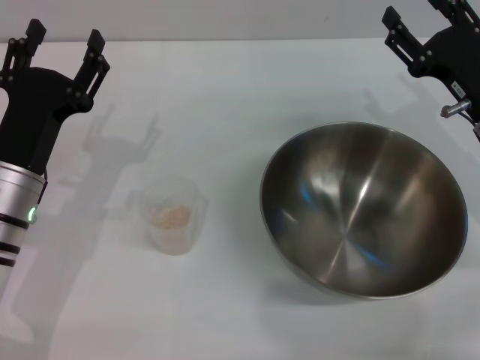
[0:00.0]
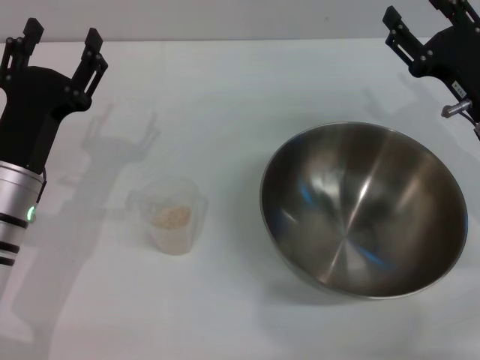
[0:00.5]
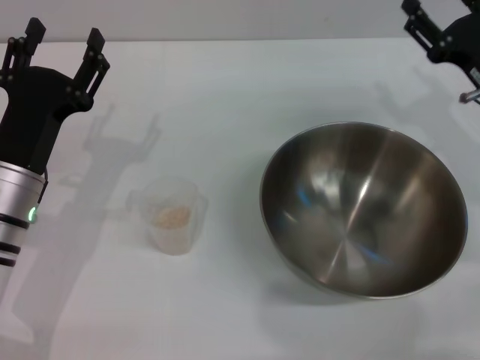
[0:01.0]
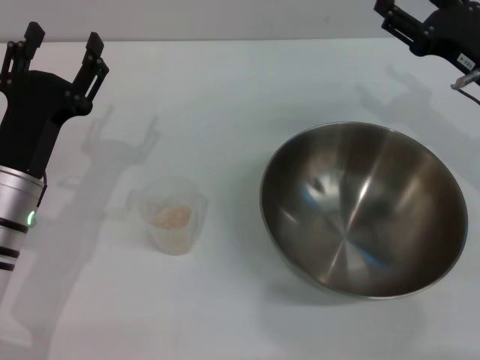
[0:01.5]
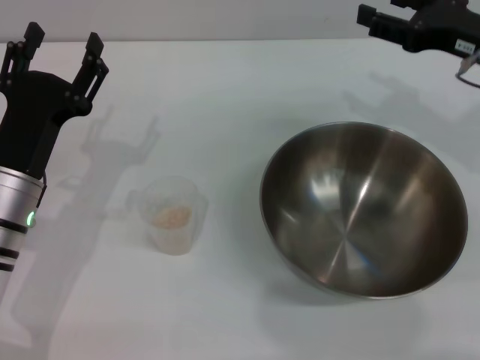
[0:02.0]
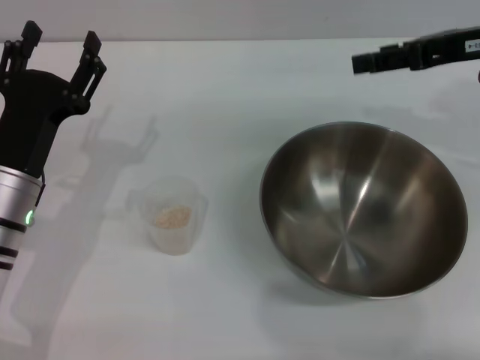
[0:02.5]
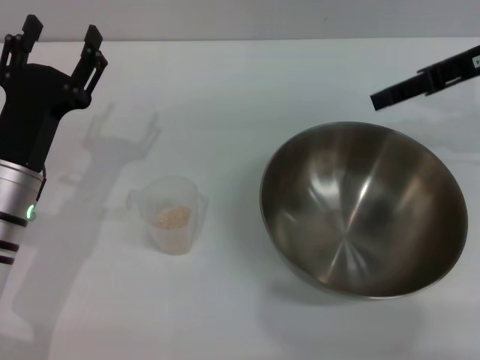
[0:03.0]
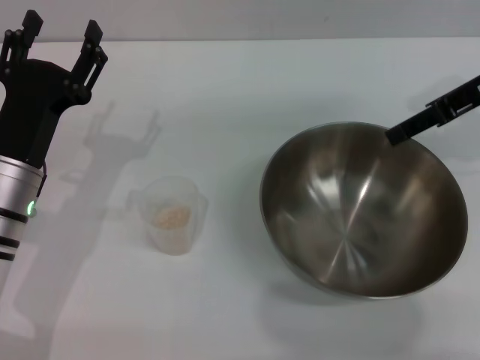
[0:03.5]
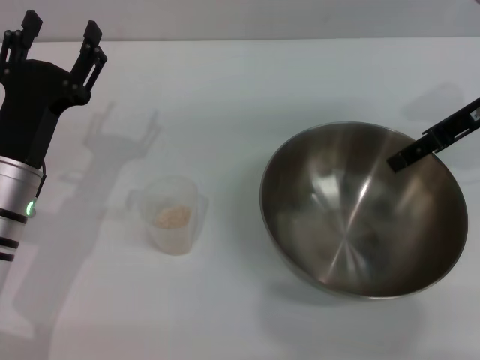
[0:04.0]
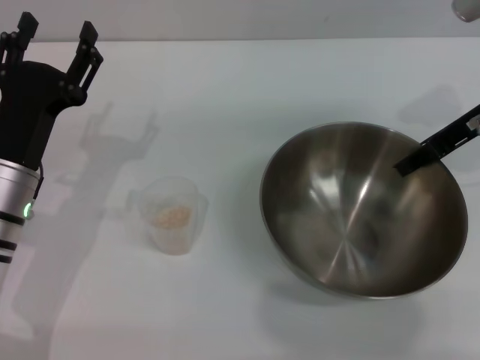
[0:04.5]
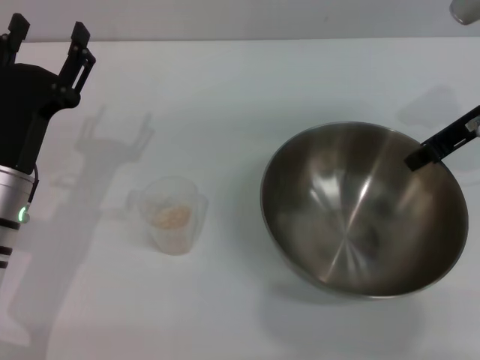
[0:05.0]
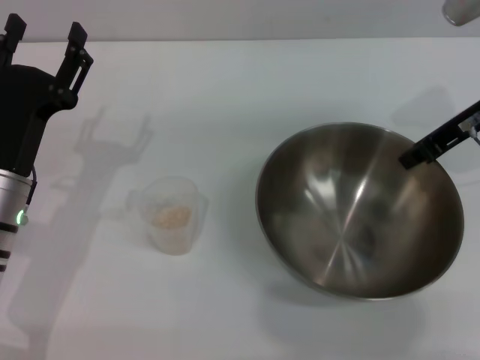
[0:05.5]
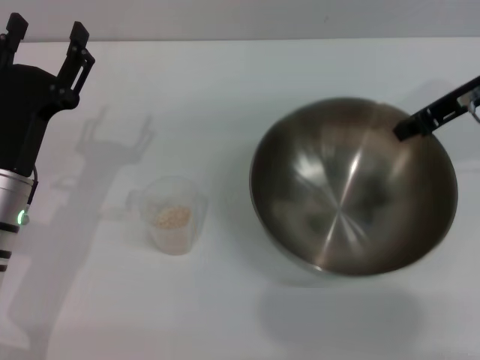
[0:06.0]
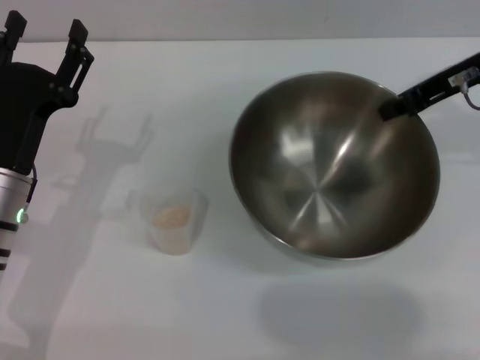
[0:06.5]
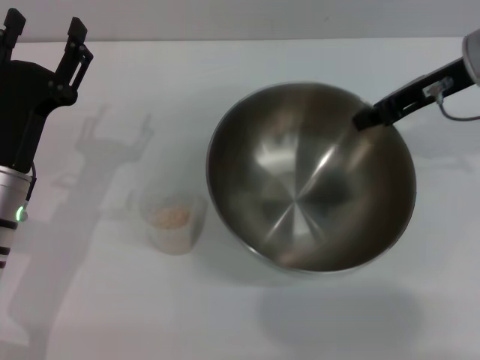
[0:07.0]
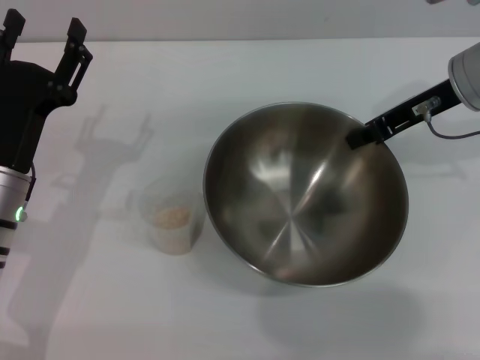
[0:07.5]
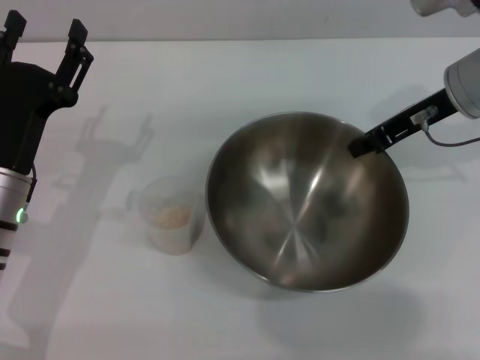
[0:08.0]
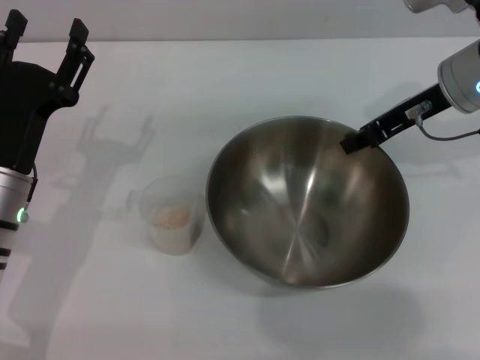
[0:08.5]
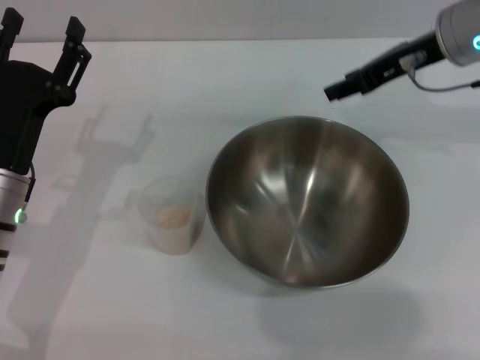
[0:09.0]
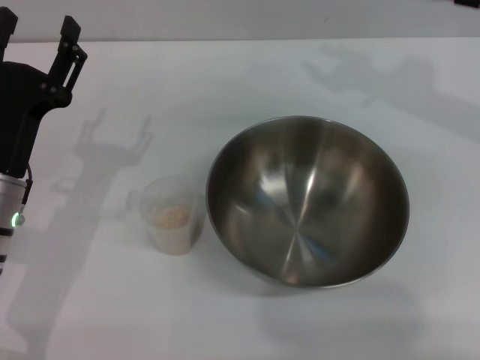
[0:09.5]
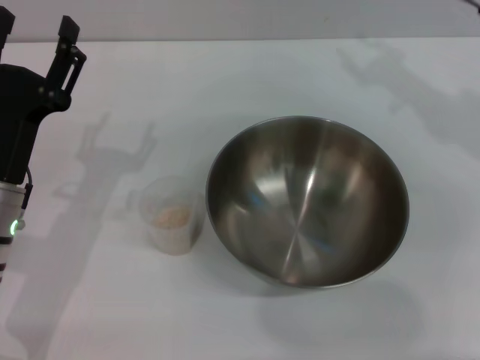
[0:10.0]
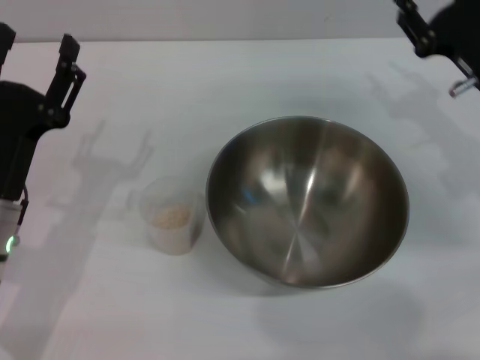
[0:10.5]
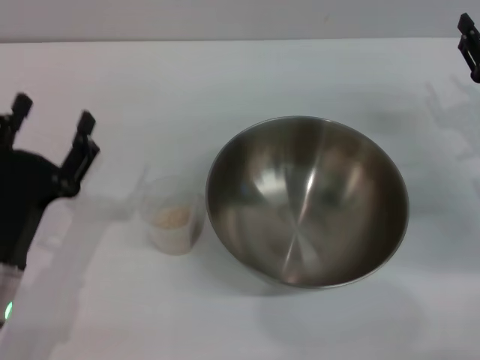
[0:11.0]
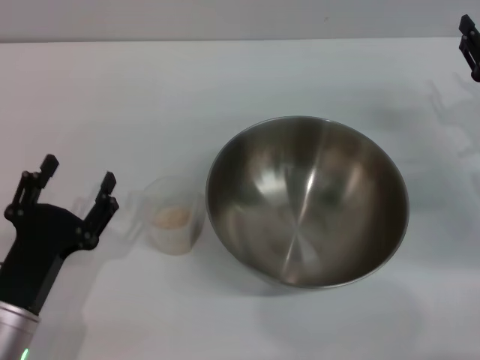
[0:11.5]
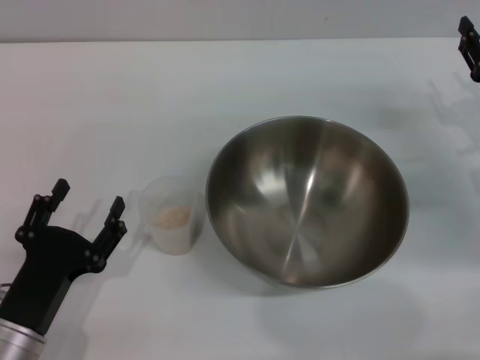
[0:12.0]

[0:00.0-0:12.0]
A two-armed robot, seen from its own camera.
Task of the whole recording: Place the bowl in the middle of the table with one hand and pour the rice from the grain cup into it with the other hand.
Step, 0:00.0 to 0:06.0: Pick up the bowl with the right gripper.
Step, 0:06.5 to 0:08.5: Place the bowl in the center of view with the right gripper.
0:00.0 to 0:02.0: The right gripper travels upward by some 10 cm.
0:04.0 to 0:06.0: The right gripper closes its fingers.
0:08.0 to 0:10.0: The right gripper opens its fingers.
0:10.0 to 0:12.0: The right gripper goes some 15 cm downward, to the right and backward, while the left gripper heads backward and downward, covering roughly 10 cm.

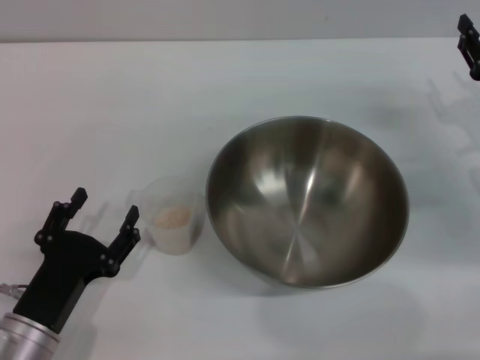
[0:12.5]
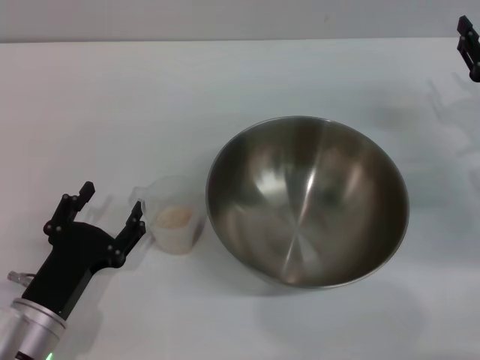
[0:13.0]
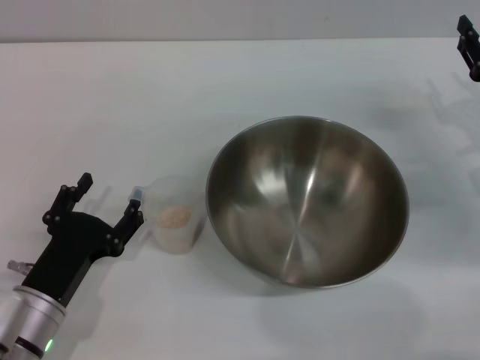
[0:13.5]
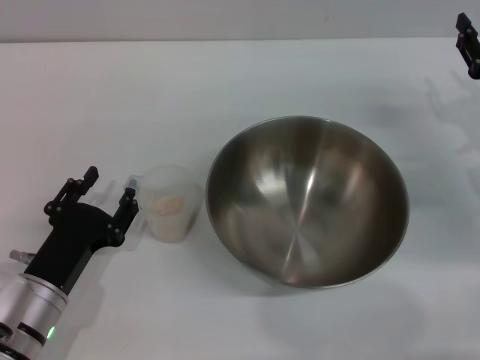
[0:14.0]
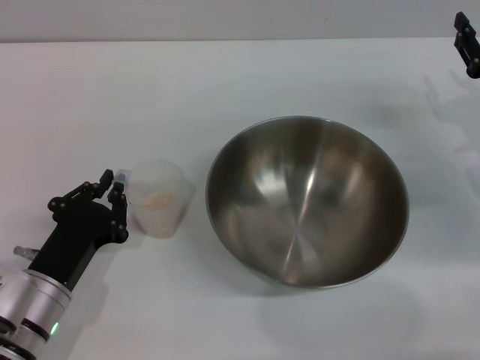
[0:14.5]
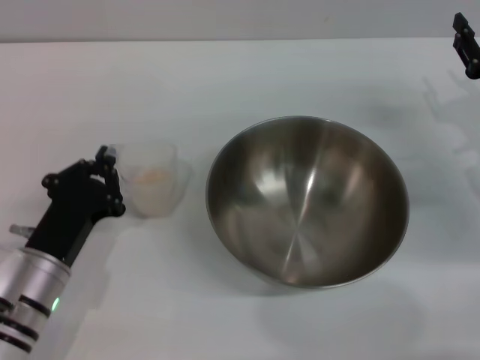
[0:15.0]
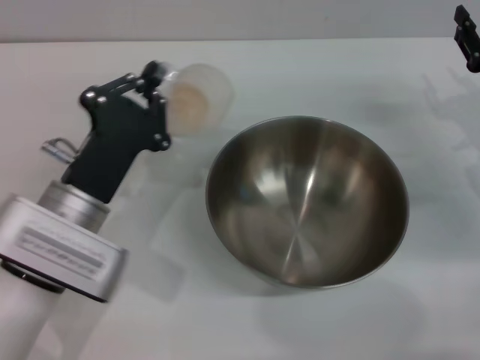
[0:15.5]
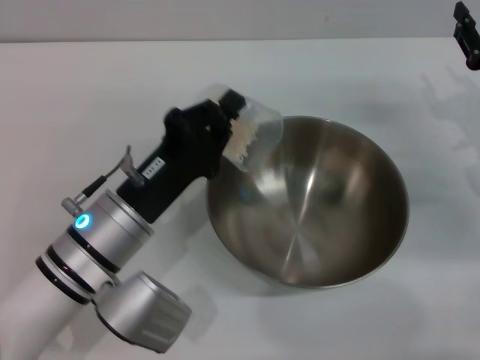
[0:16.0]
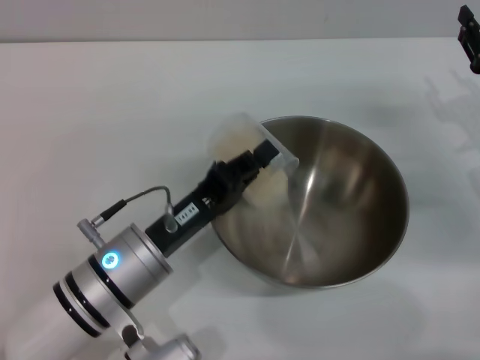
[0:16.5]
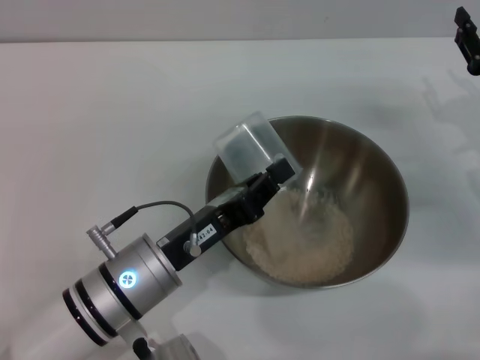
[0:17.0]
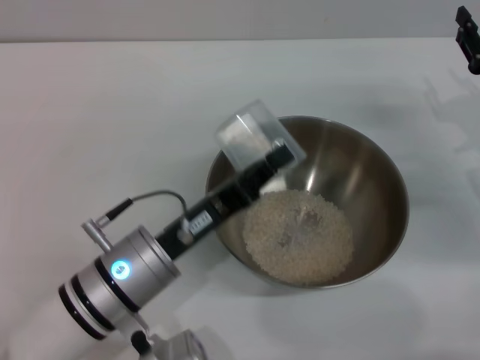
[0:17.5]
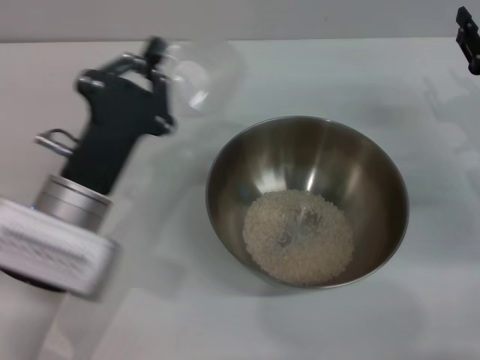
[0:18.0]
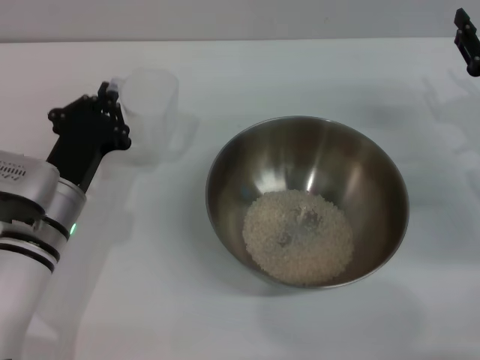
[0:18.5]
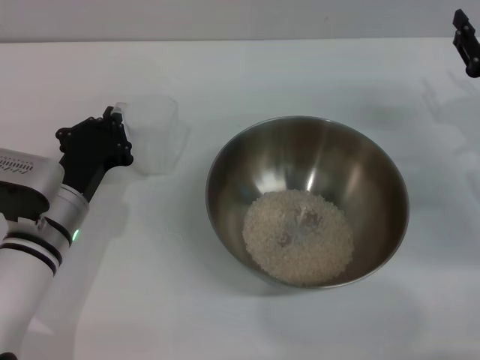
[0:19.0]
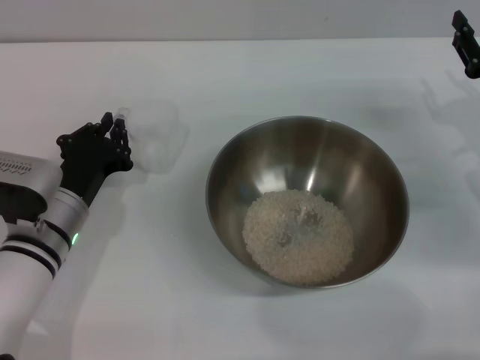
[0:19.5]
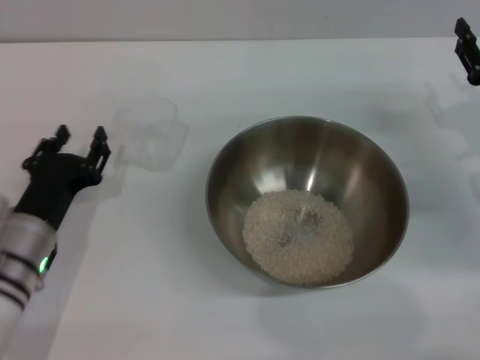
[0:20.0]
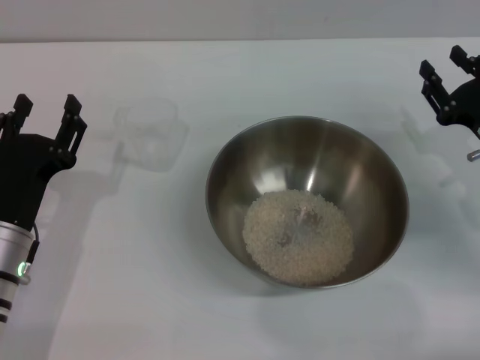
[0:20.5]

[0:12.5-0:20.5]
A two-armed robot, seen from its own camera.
Task of the whole recording: Place the bowl in the middle of the table with one hand and pour the rice from the grain cup into it with the other hand.
Step, 0:12.5 to 0:15.0: Pick up the cup with rice in it with the left gripper.
Step, 0:15.5 to 0:17.5: Pour the rice from the cup into the bowl with the left gripper.
Step, 0:18.0 to 0:20.0: Place the cup on the table with the left gripper.
0:12.5 to 0:14.5: The left gripper closes its fingers.
0:14.5 to 0:16.5: The left gripper goes approximately 10 cm to the right, and closes up.
0:16.5 to 0:18.5: The left gripper is displaced to the left and forward by approximately 10 cm.
0:18.5 to 0:20.5: The left gripper moves some 5 cm, and opens up.

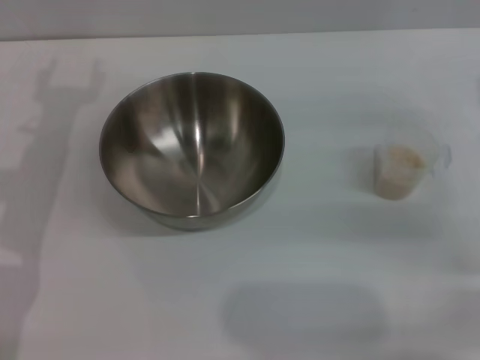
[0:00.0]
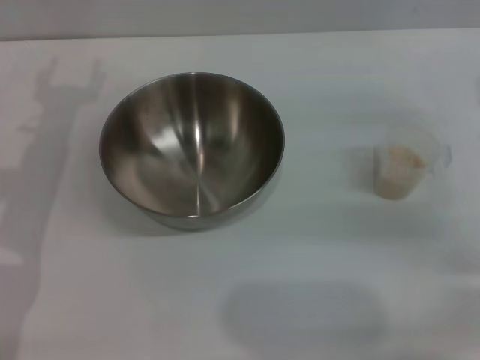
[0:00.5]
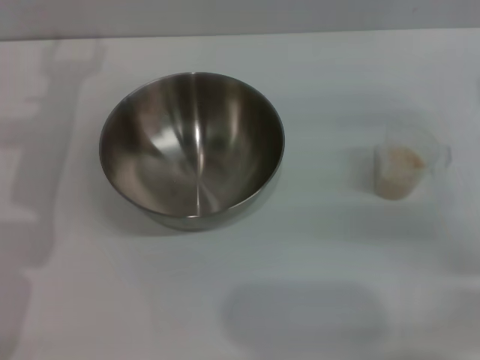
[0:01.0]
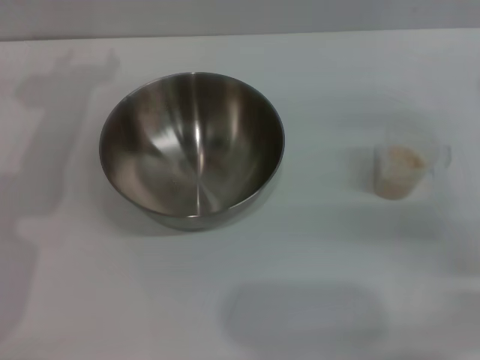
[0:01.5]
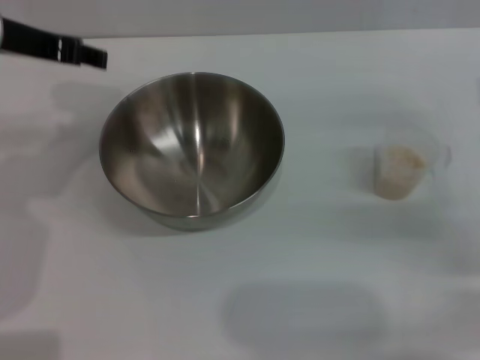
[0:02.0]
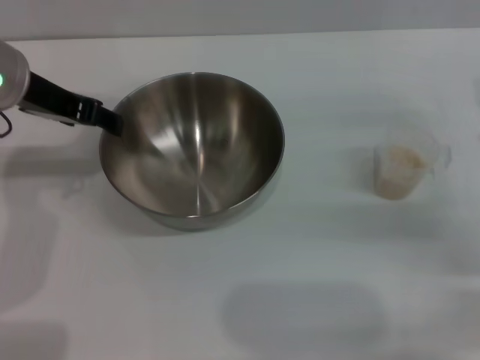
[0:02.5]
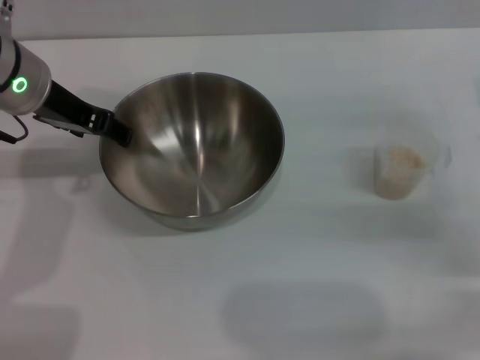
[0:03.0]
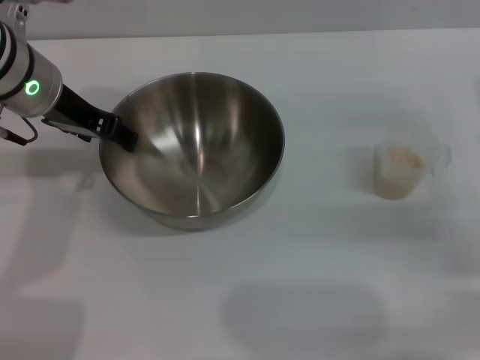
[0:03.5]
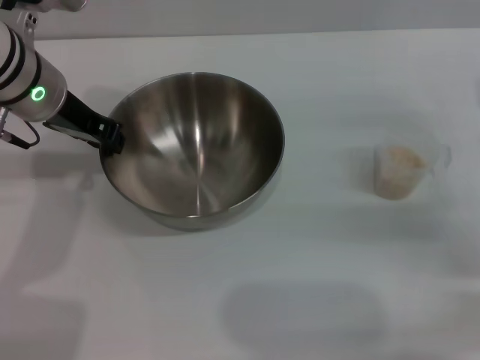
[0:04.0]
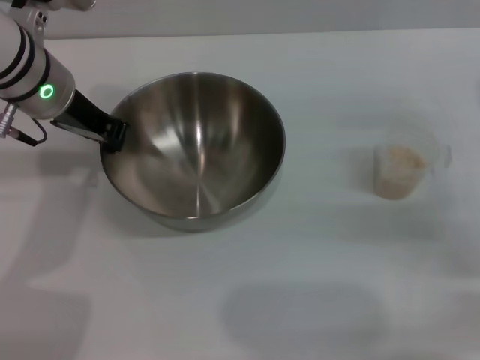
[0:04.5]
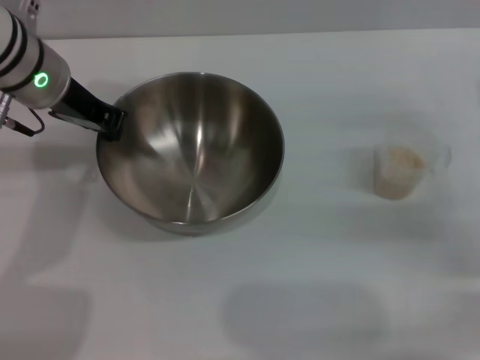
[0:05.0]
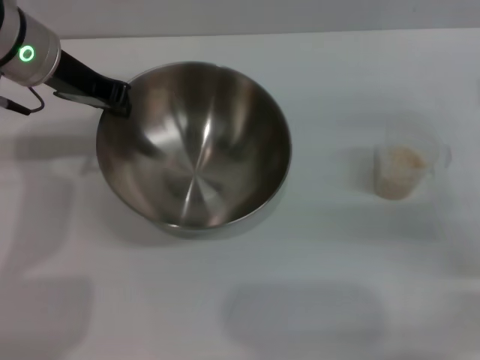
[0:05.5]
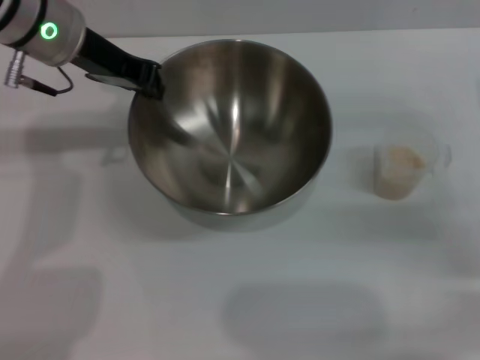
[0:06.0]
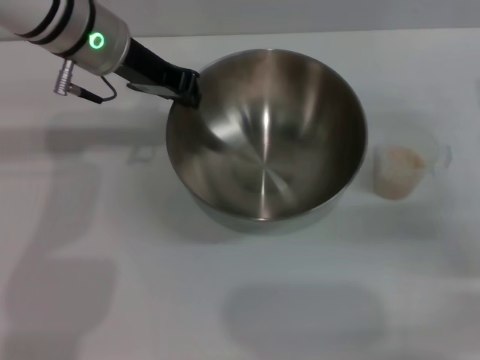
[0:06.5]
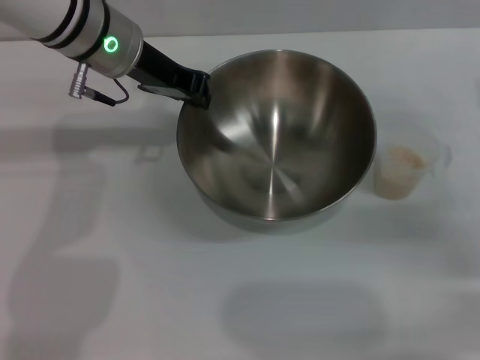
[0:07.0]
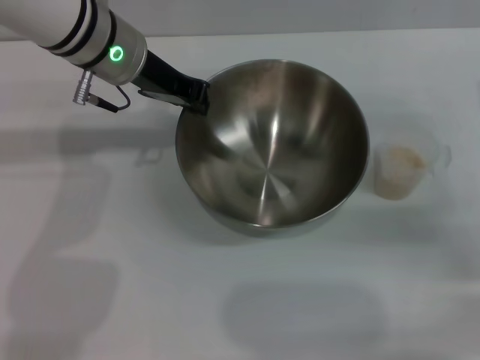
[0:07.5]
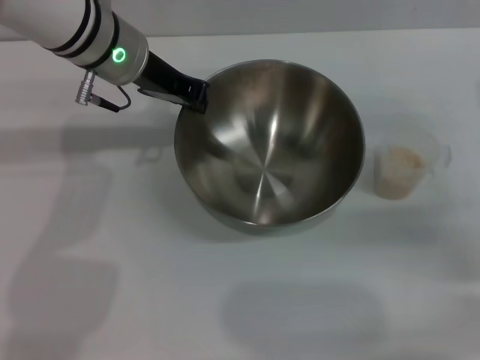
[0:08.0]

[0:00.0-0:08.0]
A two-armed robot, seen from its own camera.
Task of the whole recording: Place the bowl in the middle of the table with one hand and pour the rice from the grain cup into it with the other hand.
Step, 0:00.0 to 0:06.0: Pick up the bowl with the left gripper.
0:00.0 to 0:02.0: The left gripper shifts some 10 cm upward.
0:02.0 to 0:04.0: The left gripper is displaced downward by about 5 cm, and closes up.
0:04.0 to 0:06.0: The left gripper closes.
0:06.0 to 0:08.0: The left gripper moves some 5 cm.
